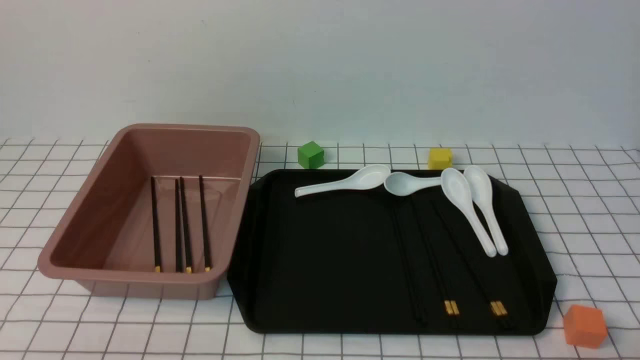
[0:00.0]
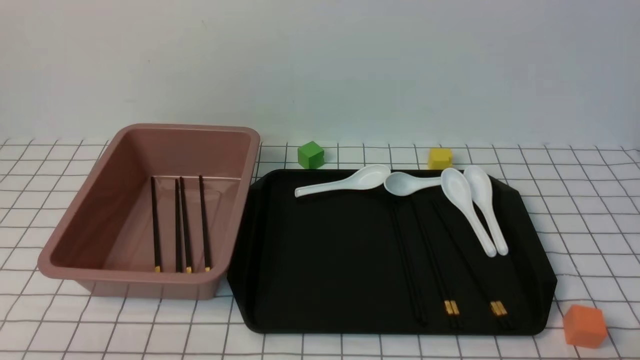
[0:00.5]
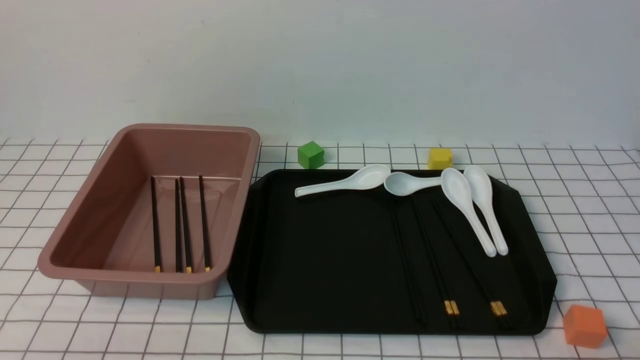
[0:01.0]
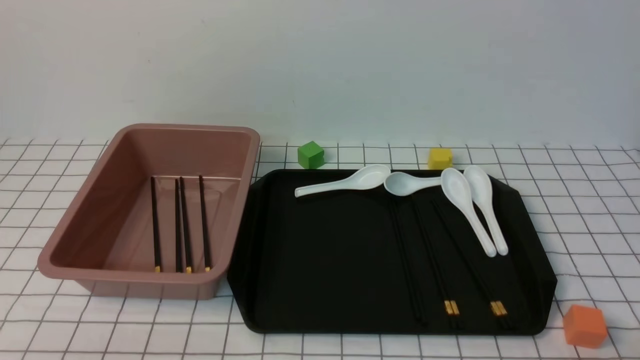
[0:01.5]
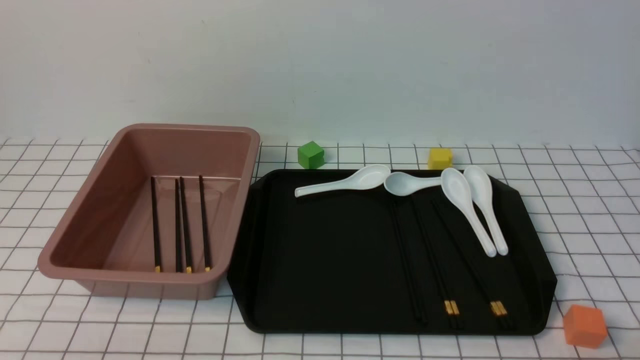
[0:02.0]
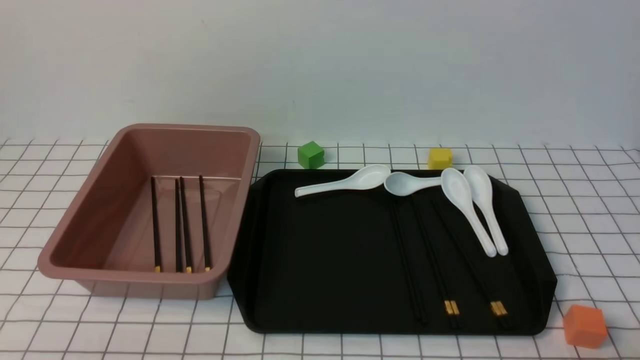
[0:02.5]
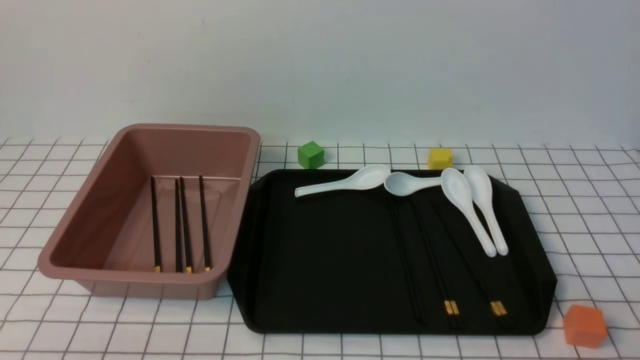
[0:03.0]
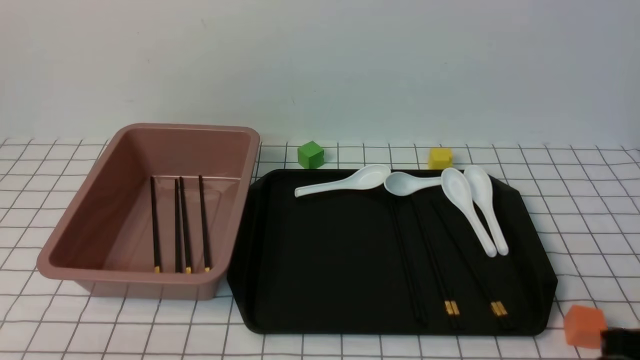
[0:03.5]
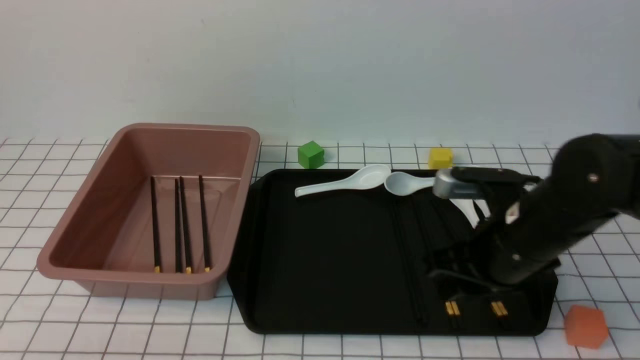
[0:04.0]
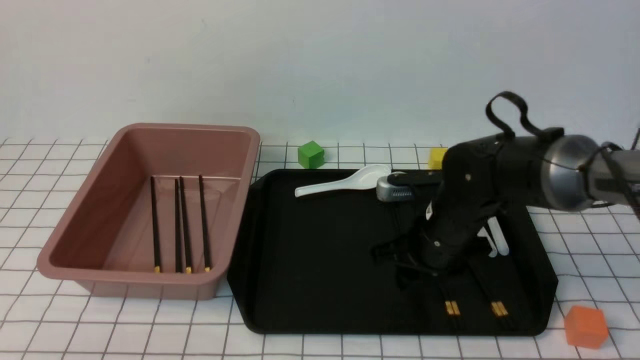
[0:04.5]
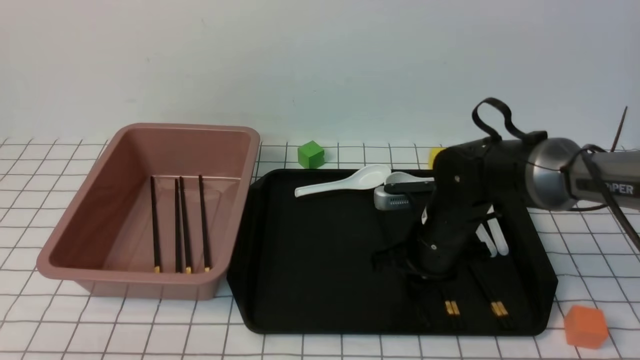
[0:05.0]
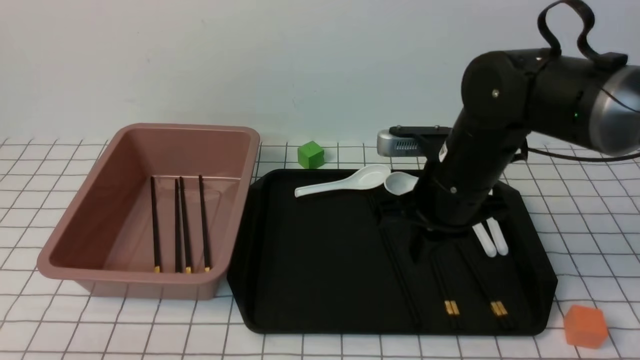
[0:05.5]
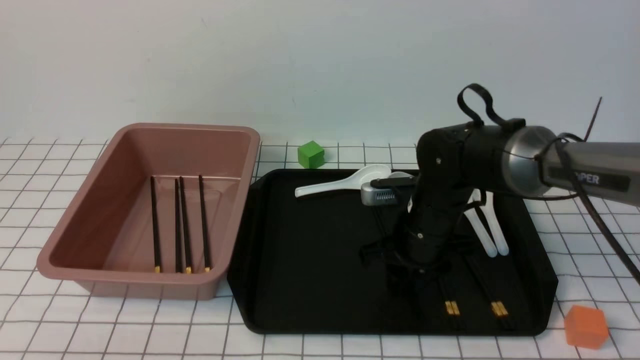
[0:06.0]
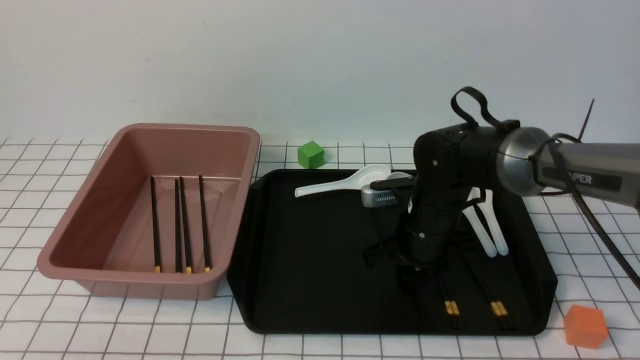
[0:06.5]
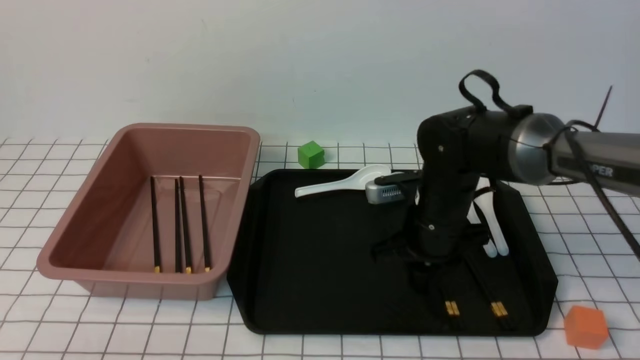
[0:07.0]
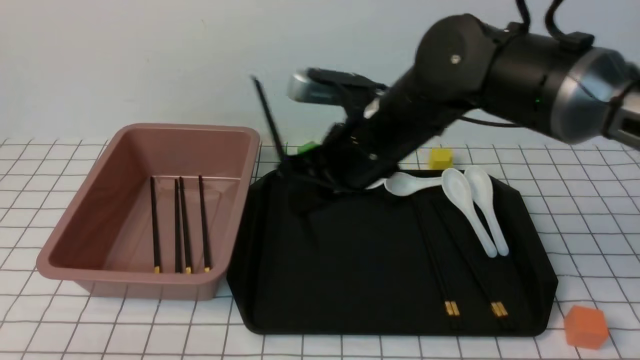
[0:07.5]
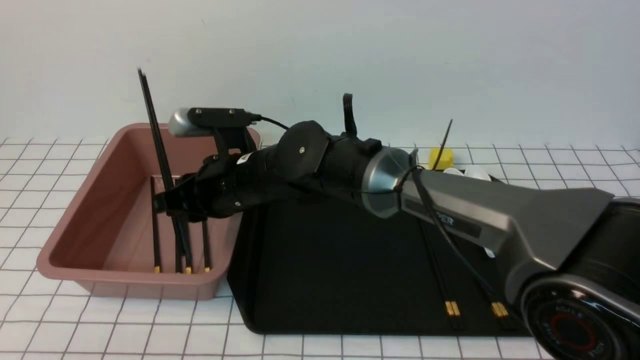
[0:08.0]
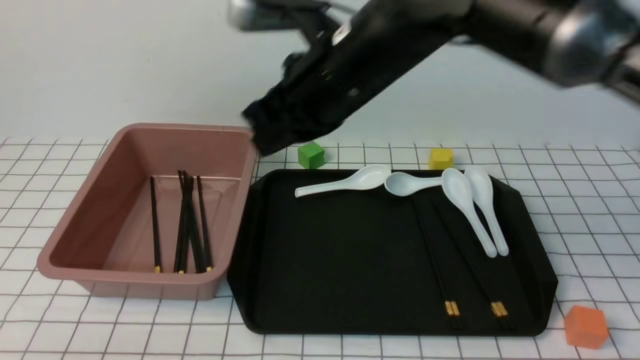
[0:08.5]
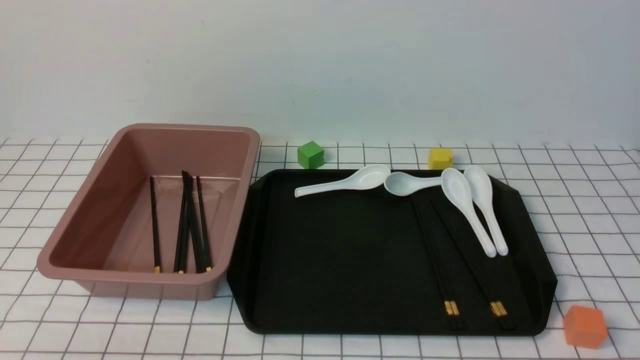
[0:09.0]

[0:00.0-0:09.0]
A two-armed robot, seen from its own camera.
Step, 0:00.0 to 0:07.0: use the right arm to grab a pair of chopsticks.
Step, 0:07.5 to 0:08.0: use the right arm to put the chopsticks into the lunch box.
0:00.0 to 0:02.0: Both grippers stay put.
0:02.0 to 0:04.5: The right gripper shifts about 35 cm forward and to the left, and closes, then reopens.
0:04.5 to 0:07.0: The right gripper swings up and down, about 10 cm each way, with 2 reversals, and closes its fingers.
0:07.0 to 0:09.0: The right gripper travels upward, backward and to the right by about 35 cm, and closes.
